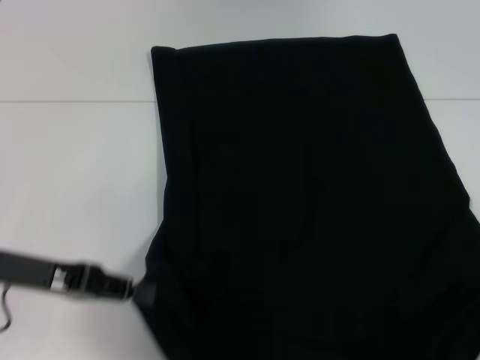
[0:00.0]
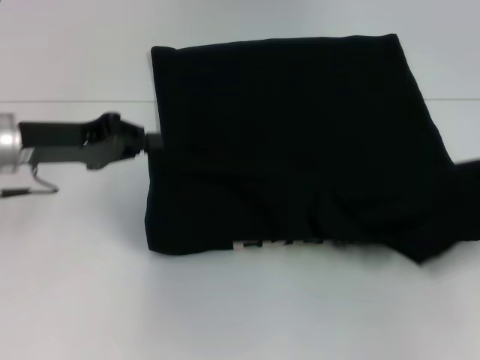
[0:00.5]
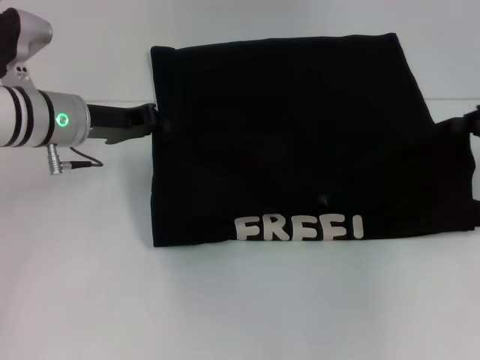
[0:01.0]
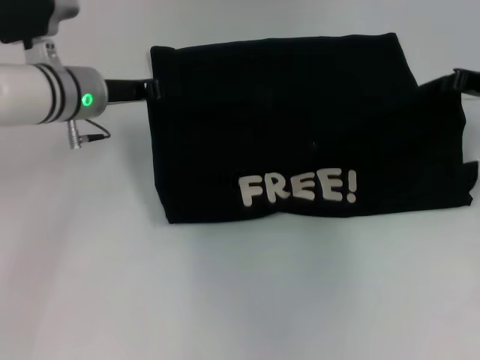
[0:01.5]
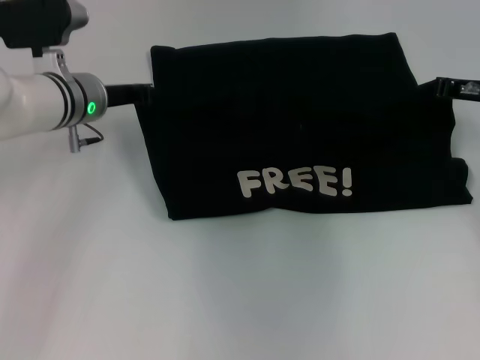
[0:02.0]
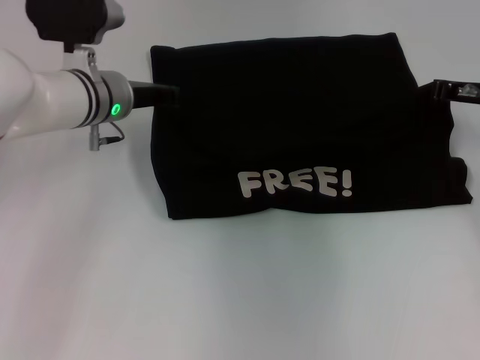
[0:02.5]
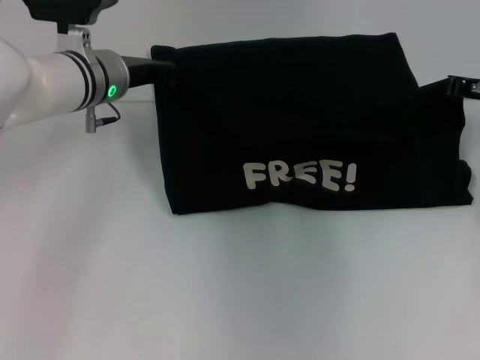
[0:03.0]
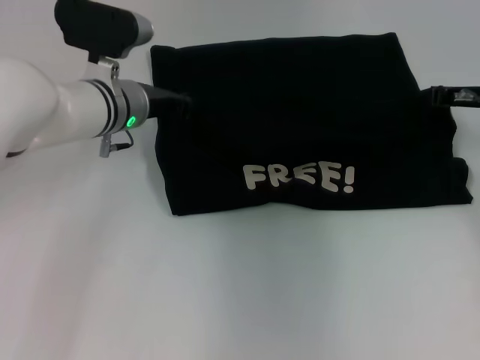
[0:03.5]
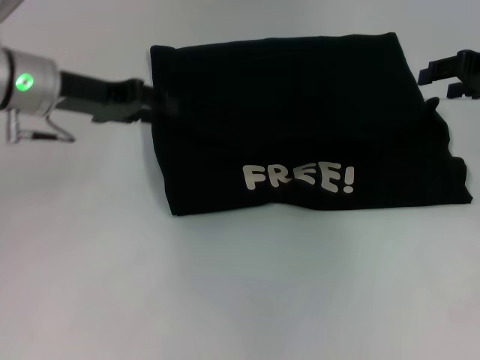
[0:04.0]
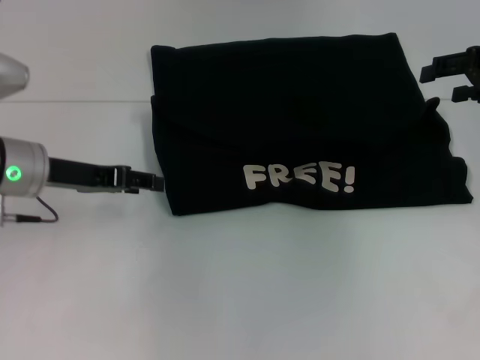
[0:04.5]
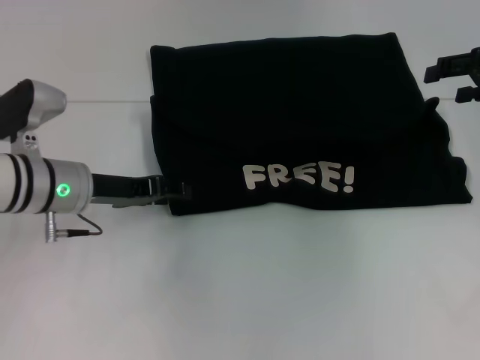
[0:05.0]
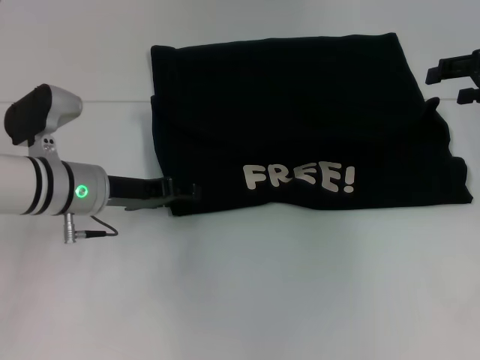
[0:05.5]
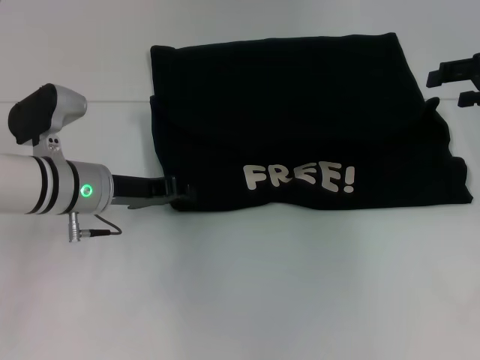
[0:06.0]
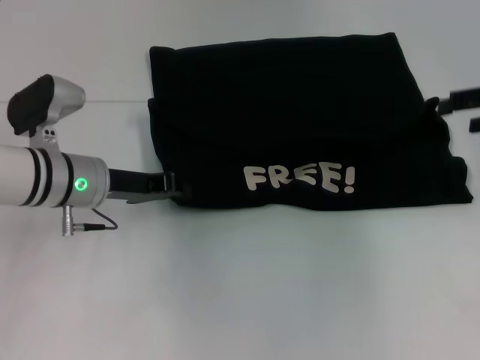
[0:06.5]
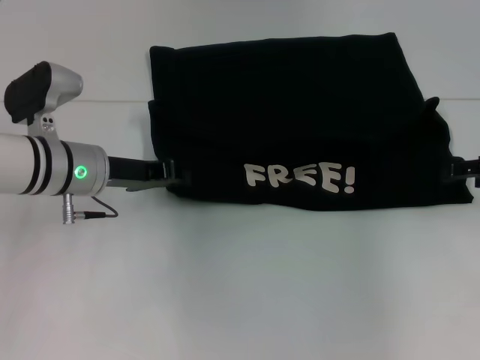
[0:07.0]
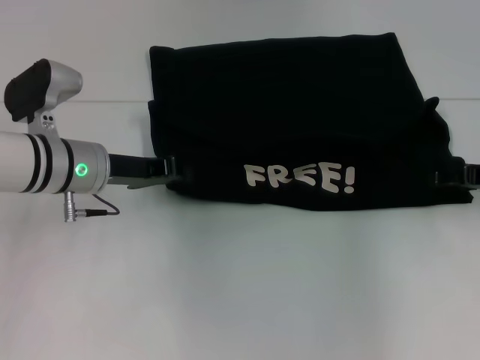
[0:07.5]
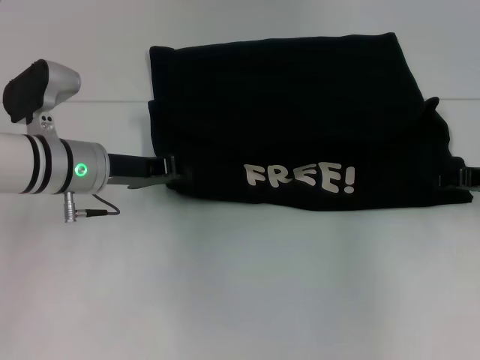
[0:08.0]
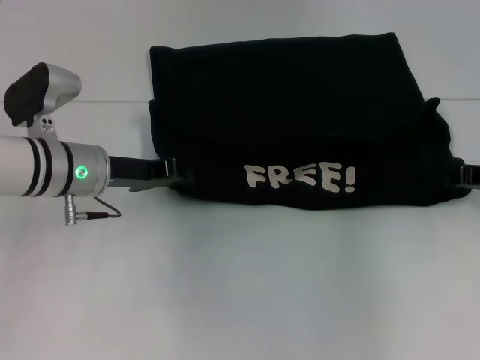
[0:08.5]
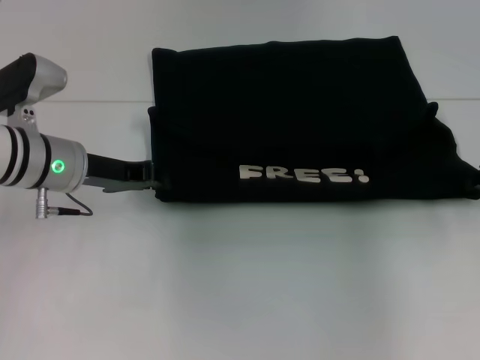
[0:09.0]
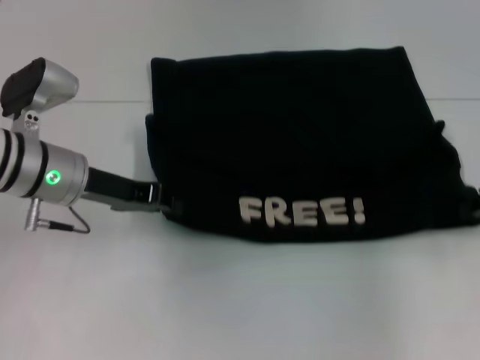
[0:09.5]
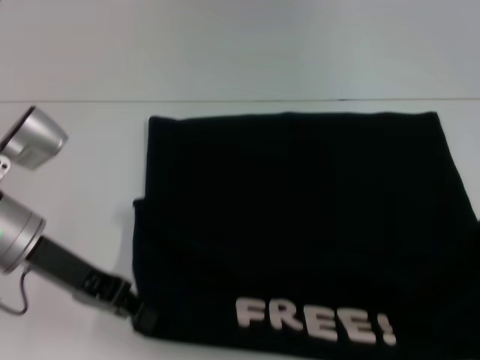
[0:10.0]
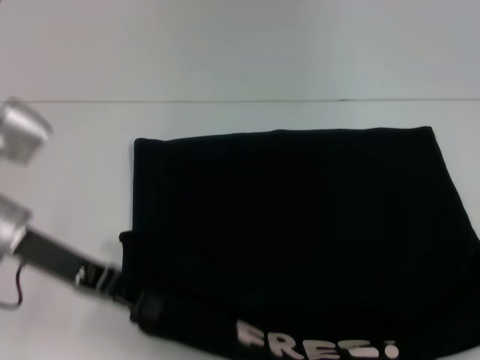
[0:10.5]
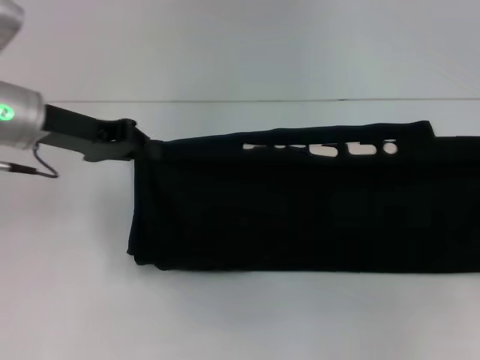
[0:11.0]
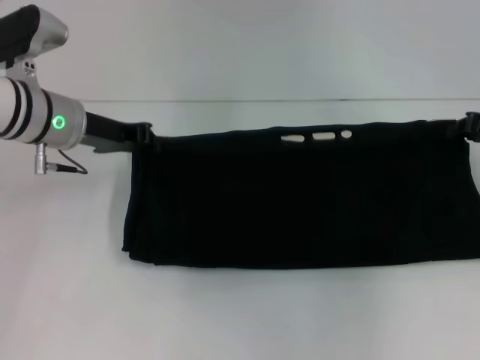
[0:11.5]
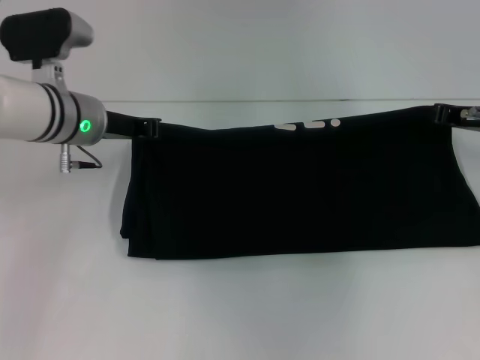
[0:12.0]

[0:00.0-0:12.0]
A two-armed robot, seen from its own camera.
Step, 0:00.0 to 0:03.5: Fold the clothes with your left hand.
Step, 0:00.0 to 0:03.5: Fold the clothes with your right hand.
Step, 0:04.0 to 0:10.0: Pull the clothes with your left hand.
Step, 0:04.0 to 0:10.0: Pull the clothes with your right hand.
0:00.0 to 0:02.0: The right gripper goes about 20 cm forward and to the left; the left gripper goes about 20 cm forward and to the right.
0:02.0 to 0:04.0: The grippers both shift upward by approximately 5 cm. The right gripper opens its fingers.
0:04.0 to 0:06.0: The left gripper is displaced downward by some 10 cm.
0:06.0 to 0:08.0: The right gripper shifts some 10 cm downward. The left gripper closes its fingers.
0:08.0 to 0:10.0: The right gripper goes some 10 cm backward, and closes, while the left gripper goes some 5 cm backward.
0:10.0 to 0:12.0: The left gripper moves forward, about 10 cm. The right gripper heads forward and to the left, covering approximately 20 cm.

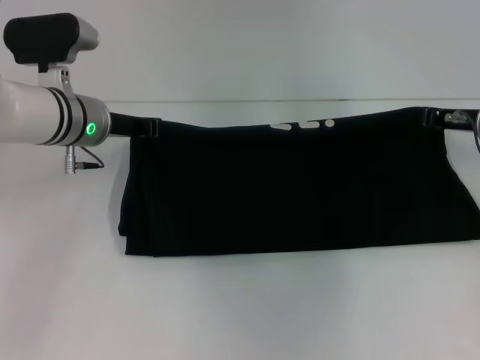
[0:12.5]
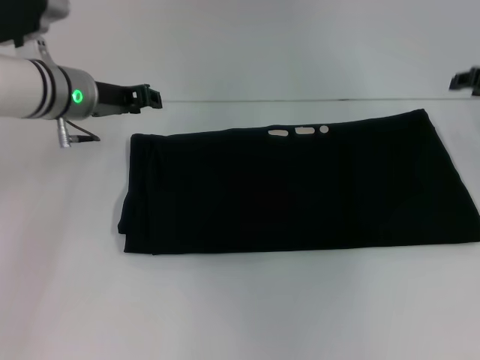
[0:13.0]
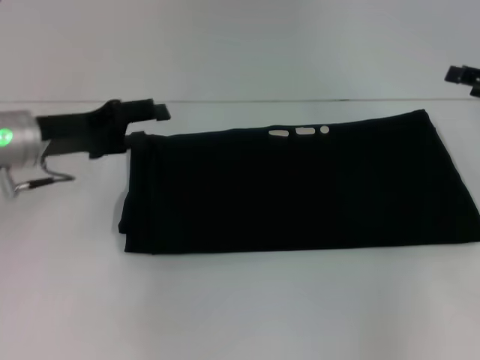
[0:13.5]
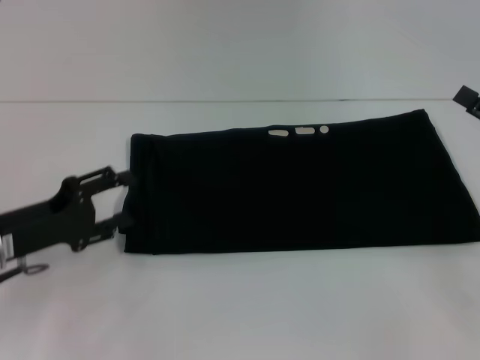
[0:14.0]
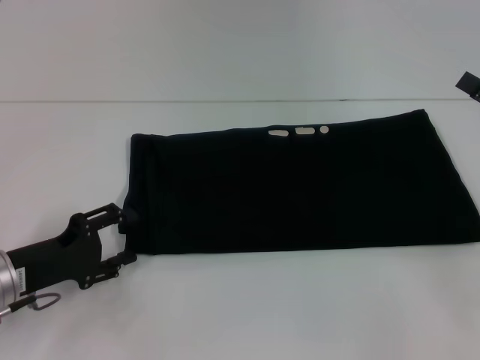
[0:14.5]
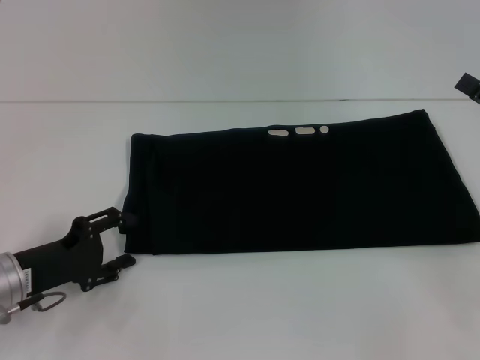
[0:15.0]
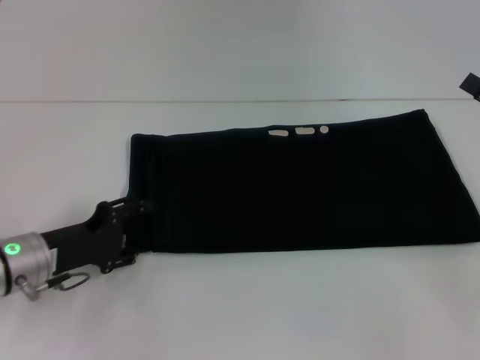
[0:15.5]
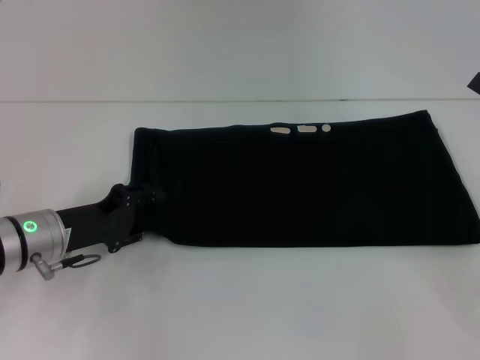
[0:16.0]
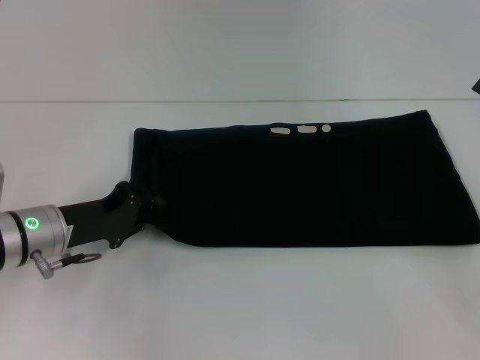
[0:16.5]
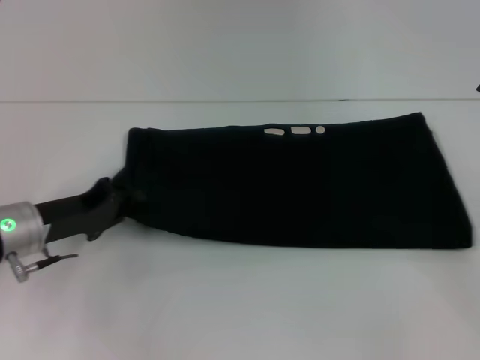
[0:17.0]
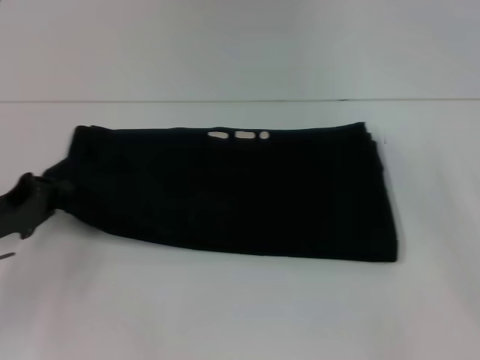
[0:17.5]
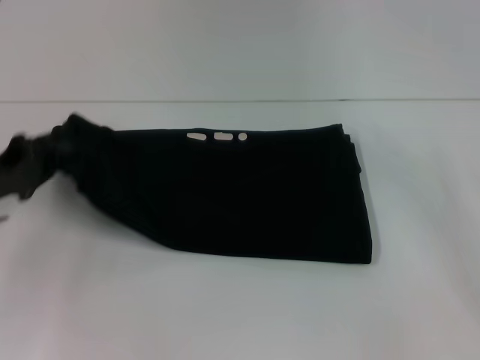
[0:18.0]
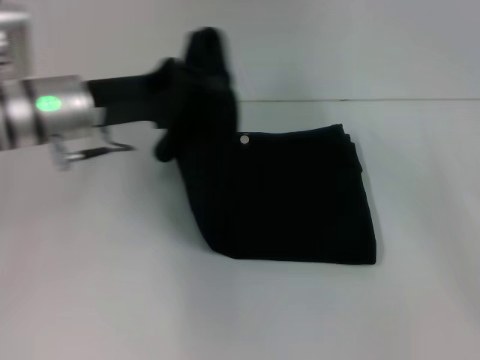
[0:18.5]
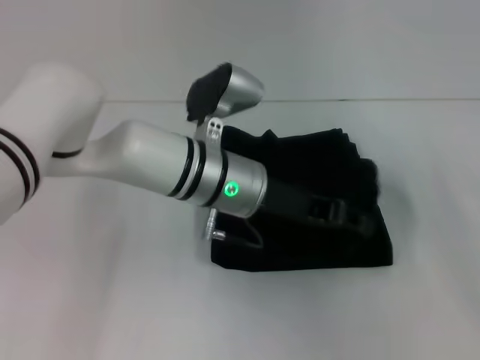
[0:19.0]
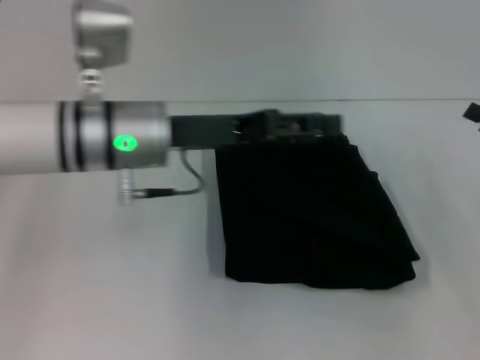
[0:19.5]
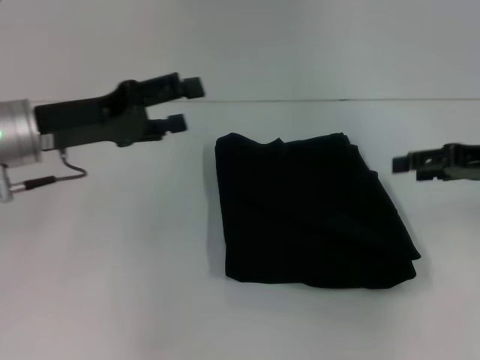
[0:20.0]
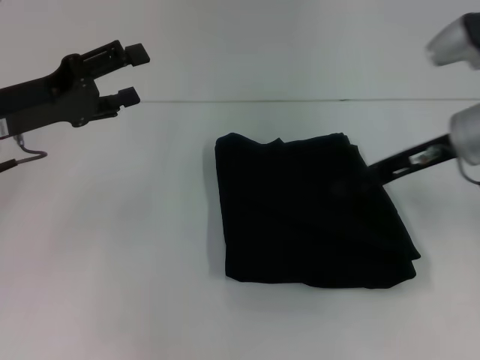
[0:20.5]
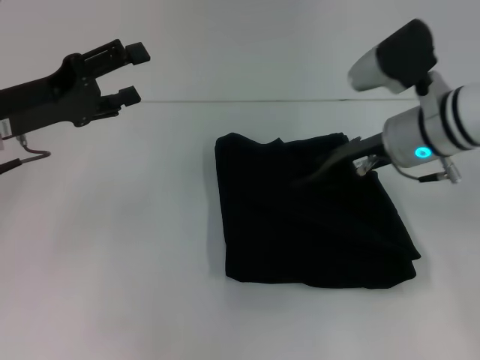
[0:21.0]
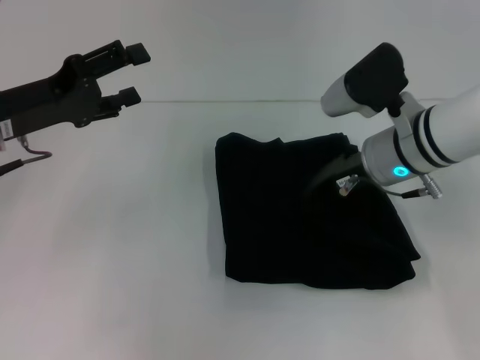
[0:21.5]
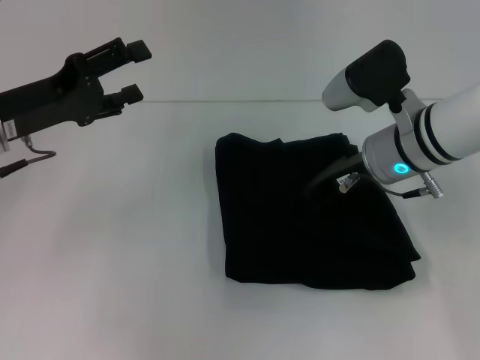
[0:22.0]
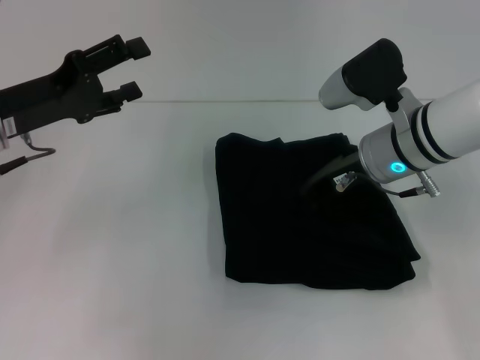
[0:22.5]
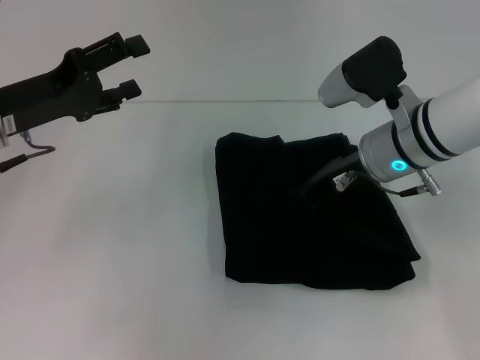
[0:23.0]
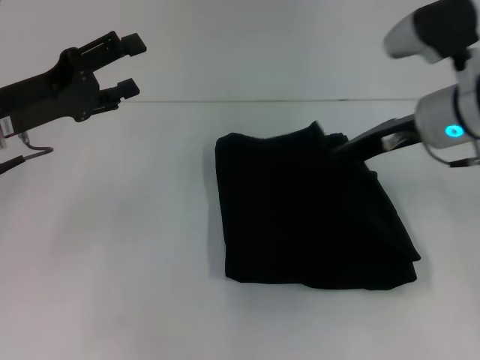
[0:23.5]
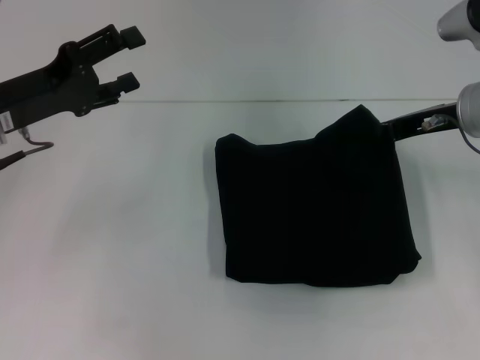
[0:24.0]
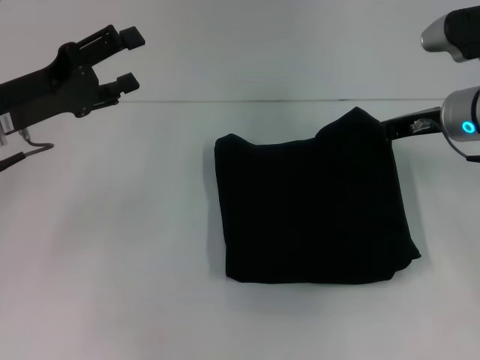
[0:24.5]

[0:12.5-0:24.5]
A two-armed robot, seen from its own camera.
Step, 0:12.5 to 0:19.0: Fold the clothes with your left hand.
0:12.5 to 0:14.5: The right gripper goes roughly 15 cm backward and to the right, and opens; the left gripper is displaced backward, to the left and downward by about 20 cm, and opens up.
0:14.5 to 0:16.5: The left gripper goes about 5 cm forward, and closes.
0:16.5 to 0:18.5: The left gripper travels upward and forward by some 15 cm, and reaches some 10 cm to the left, then returns.
0:18.5 to 0:20.5: The left gripper moves approximately 15 cm to the right and comes back, and opens its fingers. The right gripper travels to the left and forward by roughly 15 cm.
0:20.5 to 0:22.5: The right gripper goes roughly 10 cm to the left, and closes.
0:22.5 to 0:24.5: The right gripper moves to the right, about 10 cm.

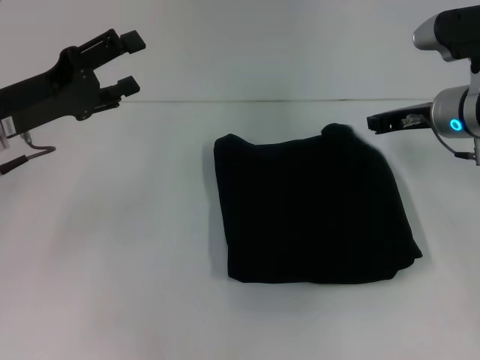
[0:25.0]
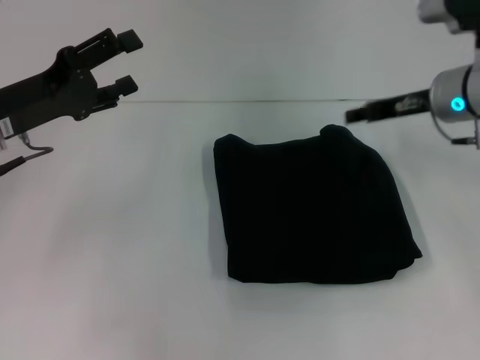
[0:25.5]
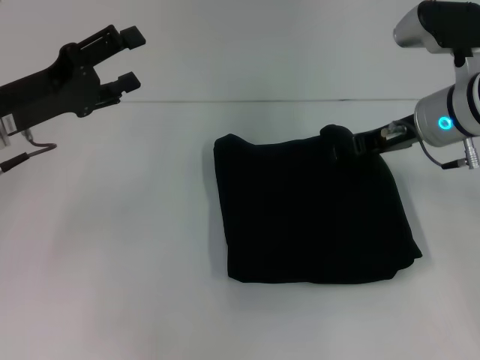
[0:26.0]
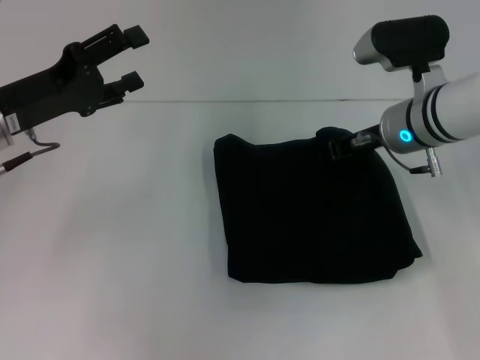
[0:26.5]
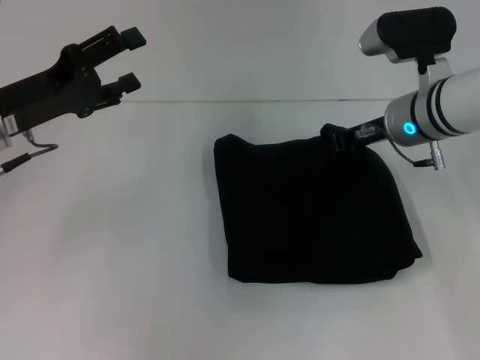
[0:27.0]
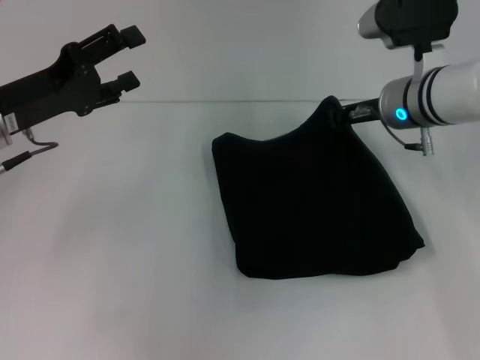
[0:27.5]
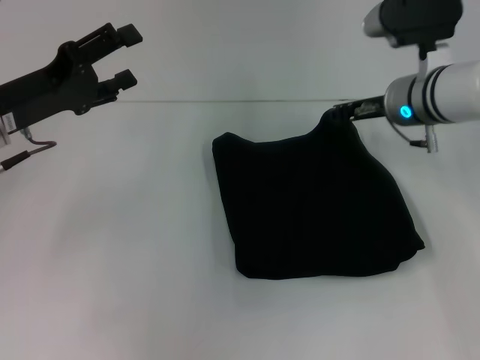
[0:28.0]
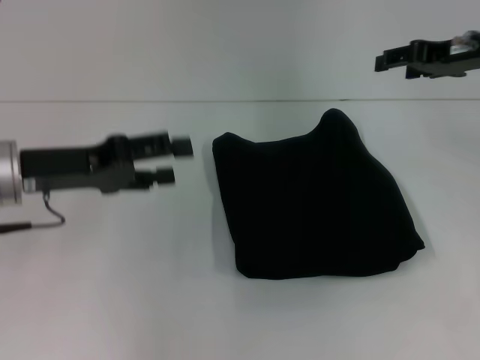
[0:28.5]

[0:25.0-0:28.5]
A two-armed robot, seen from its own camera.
0:25.0 to 0:27.0: The right gripper heads to the left, covering approximately 5 cm, and opens and closes again.
0:27.0 to 0:28.5: The right gripper is displaced to the right and upward by about 10 cm, and opens up.
